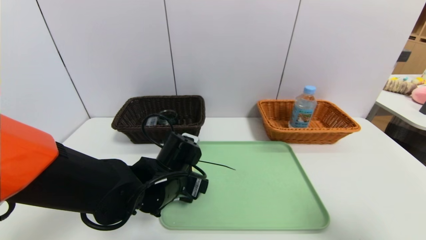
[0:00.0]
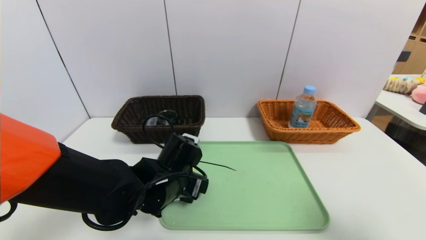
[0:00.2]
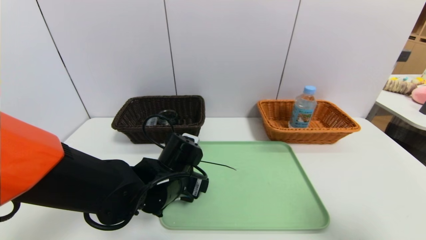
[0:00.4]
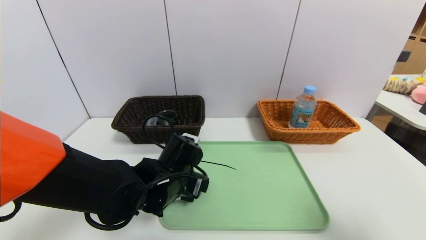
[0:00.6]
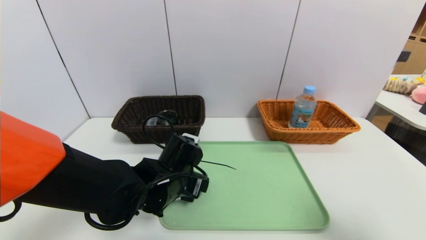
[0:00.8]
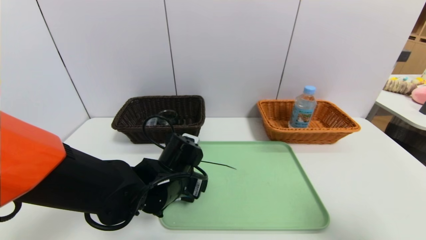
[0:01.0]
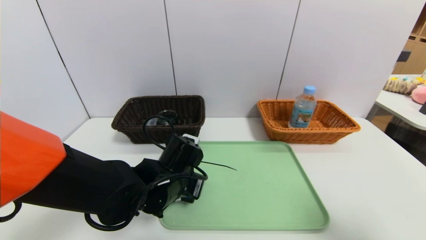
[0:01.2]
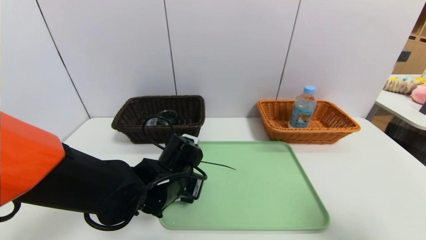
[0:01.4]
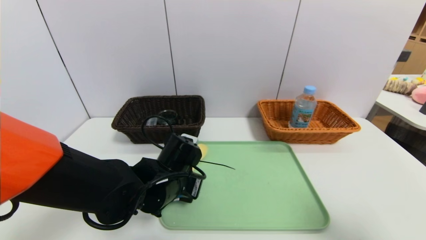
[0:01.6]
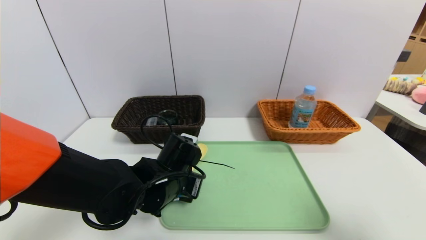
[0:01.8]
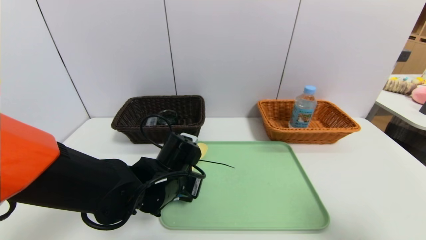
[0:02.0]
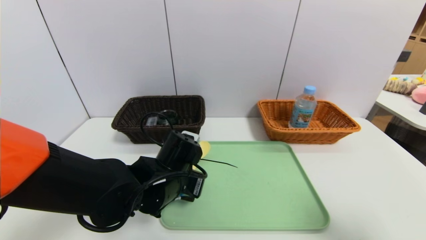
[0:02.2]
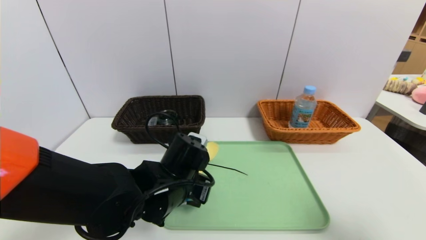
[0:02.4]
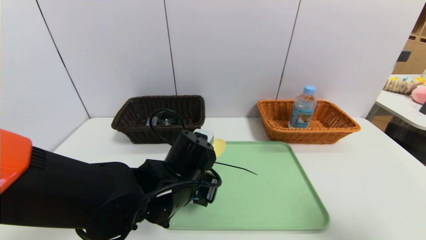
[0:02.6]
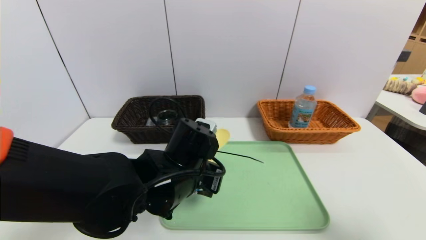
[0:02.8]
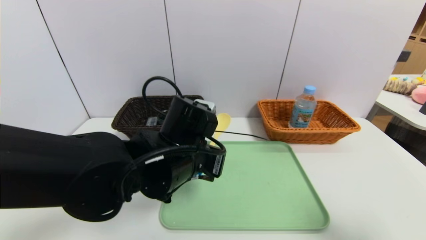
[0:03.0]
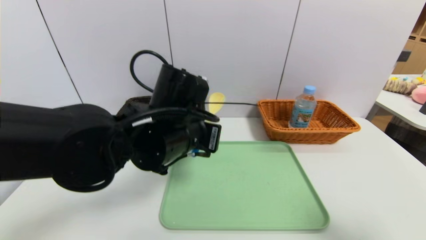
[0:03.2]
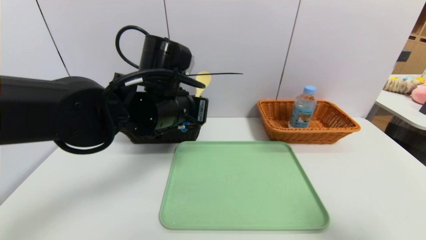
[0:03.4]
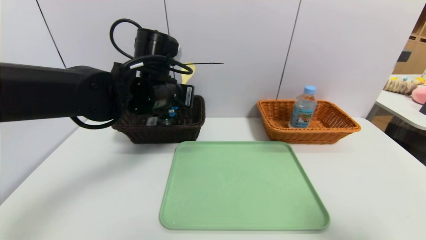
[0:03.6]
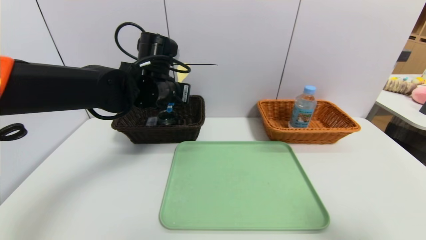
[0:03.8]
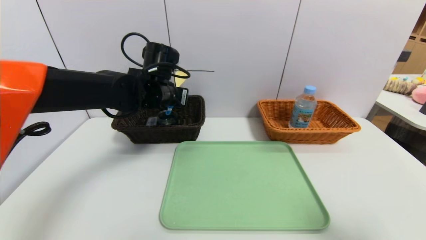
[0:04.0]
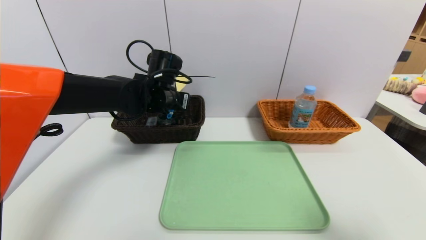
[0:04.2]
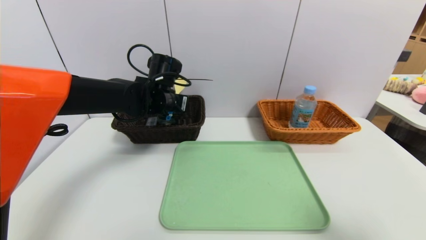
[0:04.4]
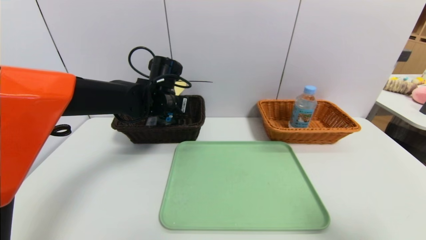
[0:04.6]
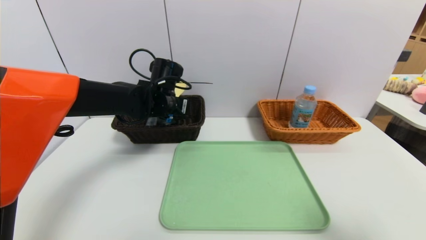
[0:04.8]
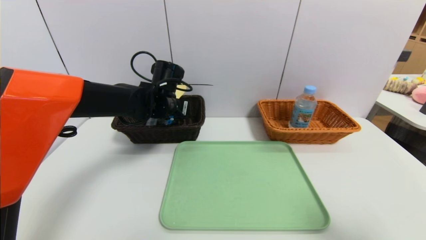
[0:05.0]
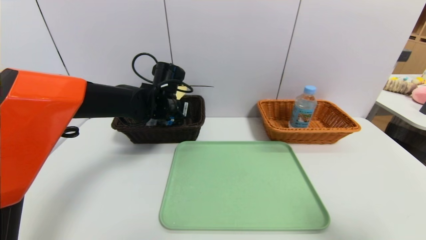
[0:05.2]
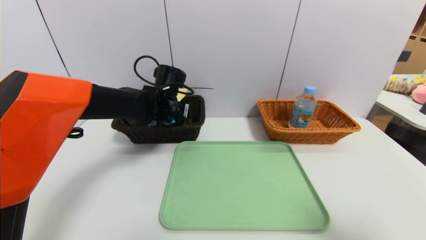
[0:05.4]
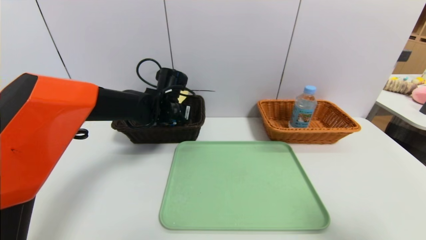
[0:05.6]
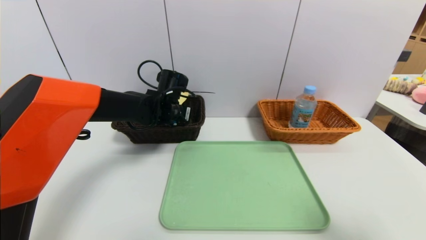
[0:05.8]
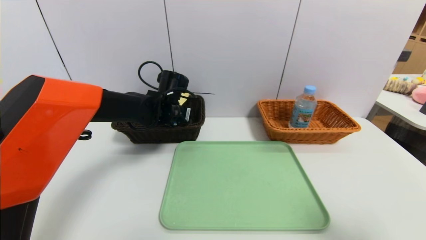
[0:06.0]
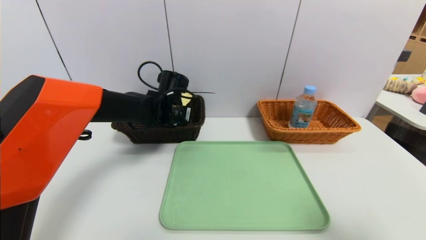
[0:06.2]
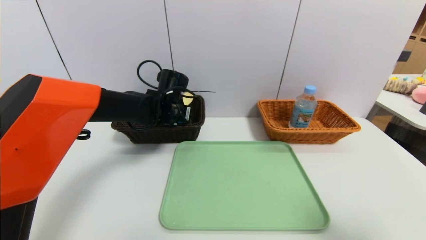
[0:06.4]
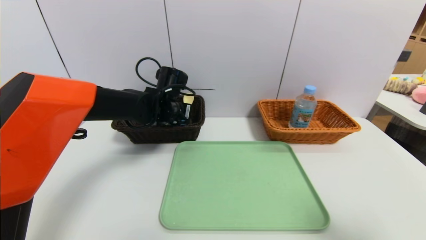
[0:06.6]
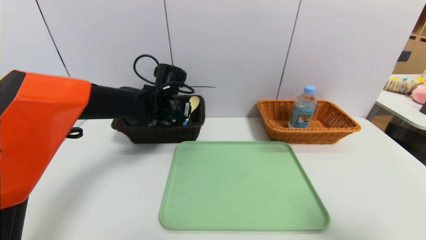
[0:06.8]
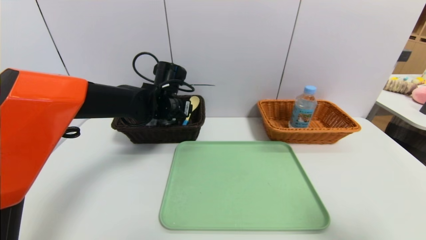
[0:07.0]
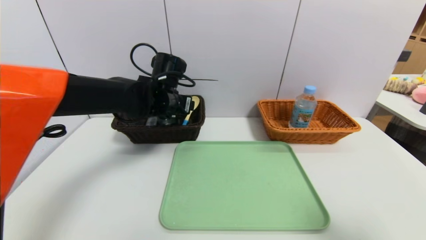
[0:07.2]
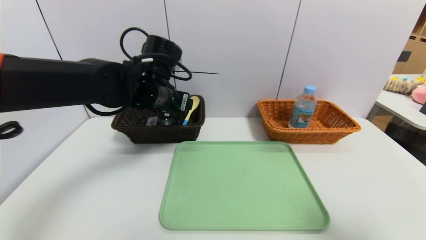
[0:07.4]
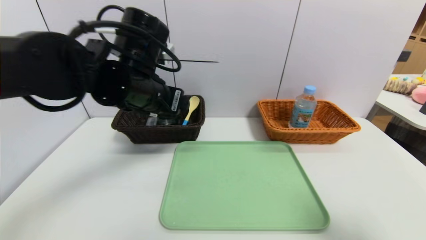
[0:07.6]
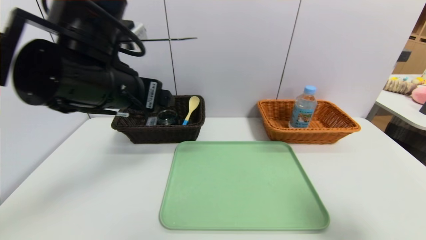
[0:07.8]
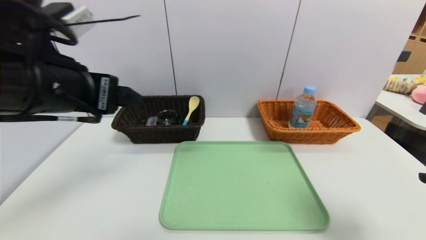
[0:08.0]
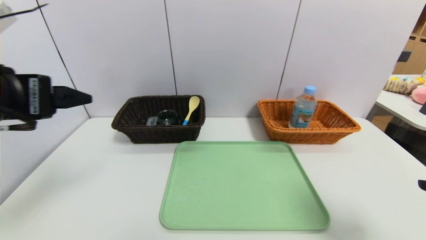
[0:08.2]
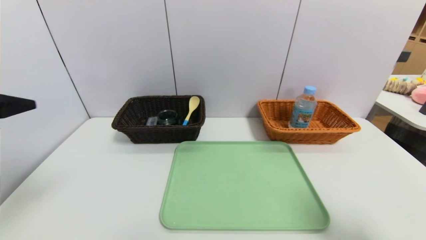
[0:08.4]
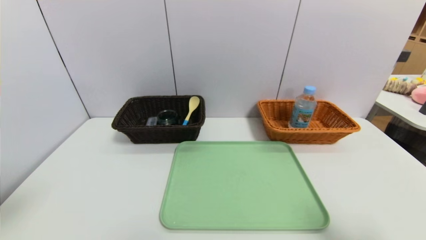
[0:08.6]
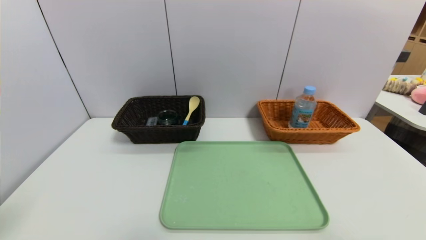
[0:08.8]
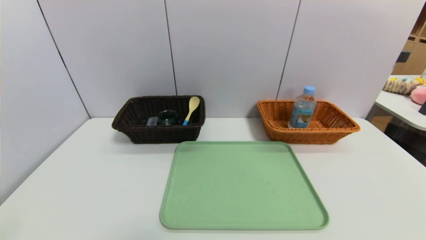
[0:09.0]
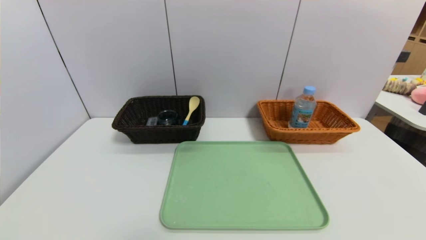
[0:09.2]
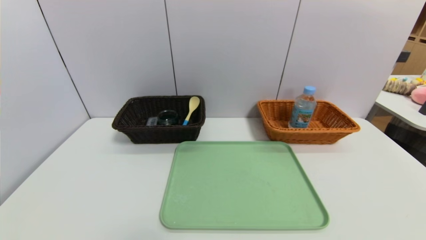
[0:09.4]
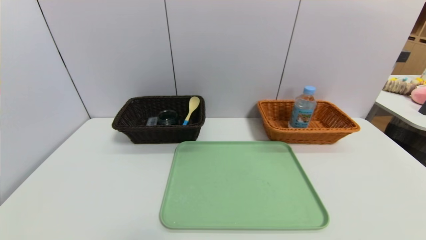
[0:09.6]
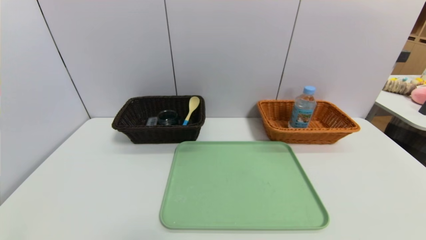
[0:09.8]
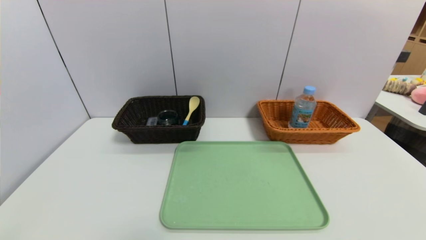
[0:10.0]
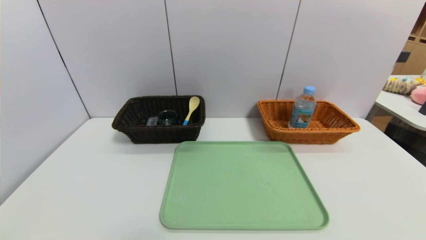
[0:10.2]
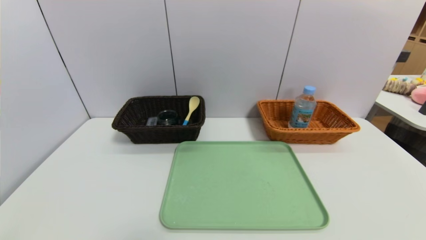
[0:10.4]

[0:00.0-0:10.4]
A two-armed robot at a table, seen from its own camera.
Task of the whole recording: place the food in the right basket with the right gripper, and place the non food items in the left basket with the left gripper.
Step, 0:00.0 to 0:08.0: Grasp the spoon and put it in the left basket.
0:00.0 to 0:01.4: The left gripper closes its fingers.
0:01.4 to 0:03.0: The left gripper heads upward, covering approximately 10 cm, and closes.
0:03.0 to 0:04.4: The left gripper shifts approximately 15 cm forward.
0:04.4 to 0:06.0: The grippers make only small movements.
0:06.0 to 0:07.4: The left gripper moves upward and backward, about 10 cm, and opens.
0:07.4 to 0:09.0: The right gripper travels backward and downward by roughly 10 cm. The left gripper moves backward and to the left, approximately 40 cm.
